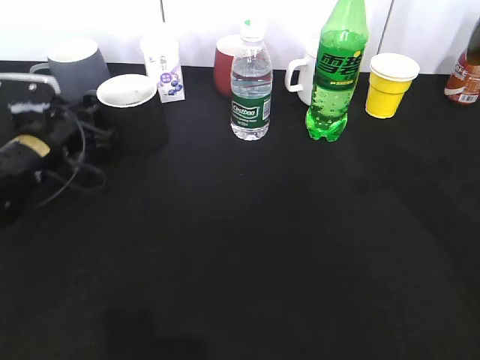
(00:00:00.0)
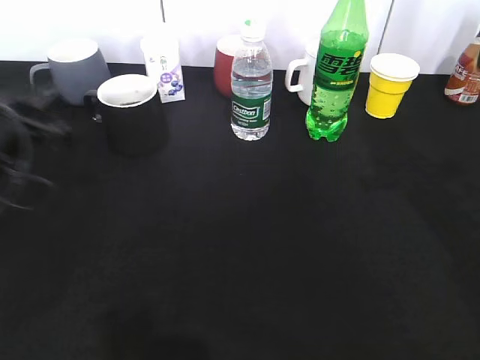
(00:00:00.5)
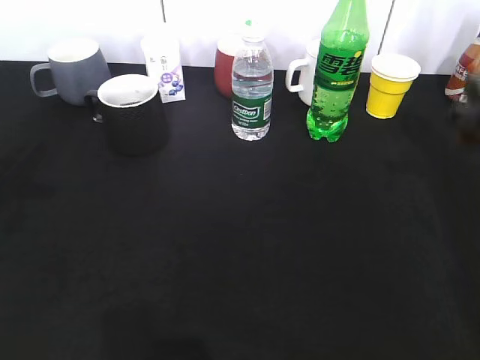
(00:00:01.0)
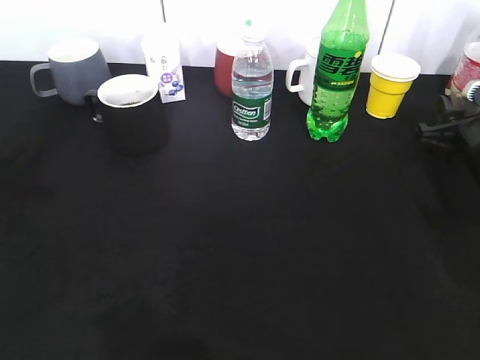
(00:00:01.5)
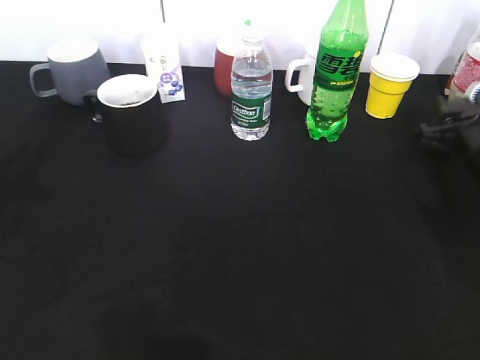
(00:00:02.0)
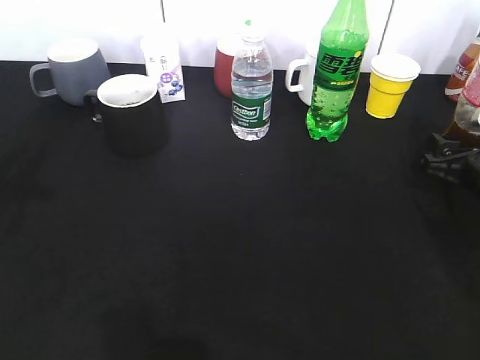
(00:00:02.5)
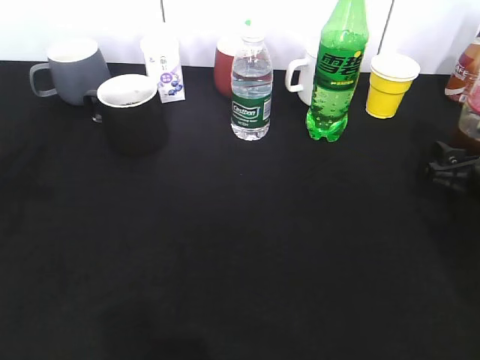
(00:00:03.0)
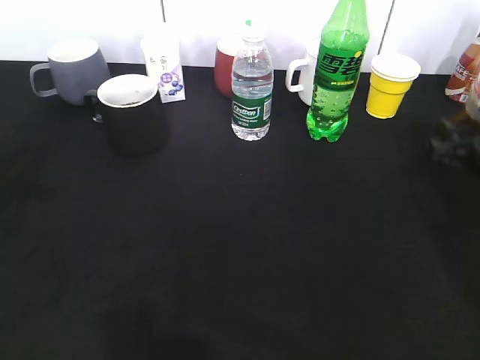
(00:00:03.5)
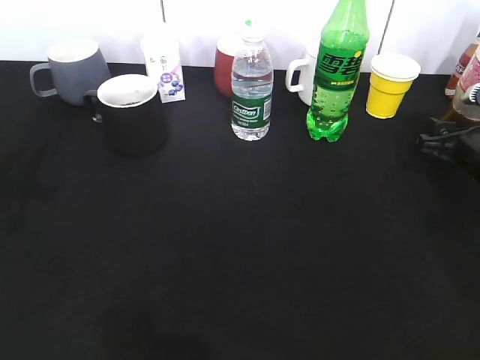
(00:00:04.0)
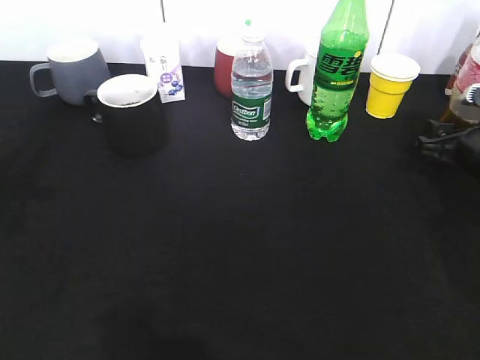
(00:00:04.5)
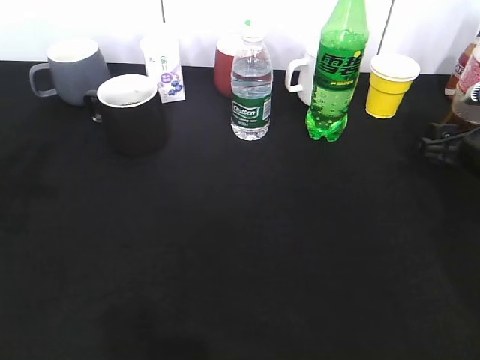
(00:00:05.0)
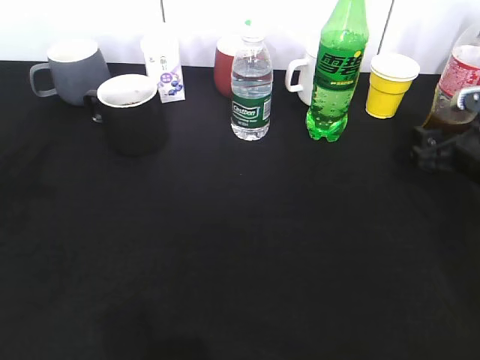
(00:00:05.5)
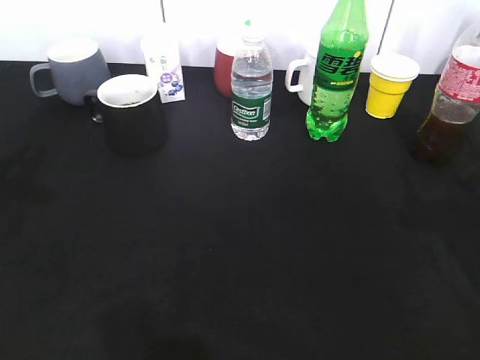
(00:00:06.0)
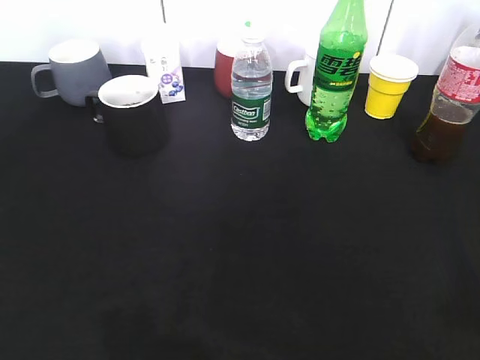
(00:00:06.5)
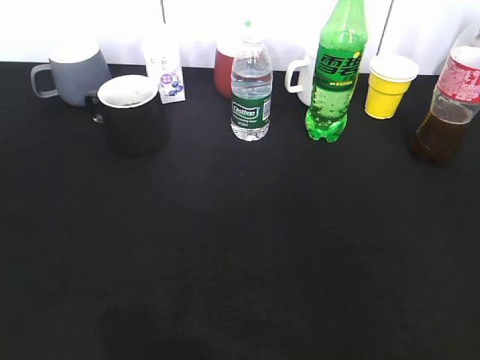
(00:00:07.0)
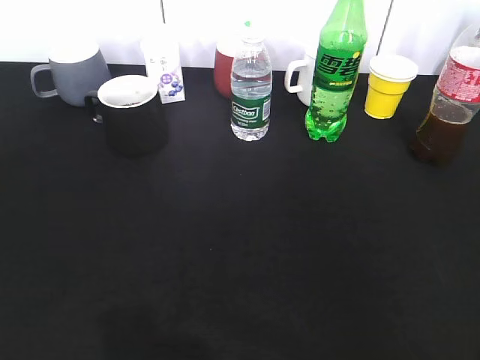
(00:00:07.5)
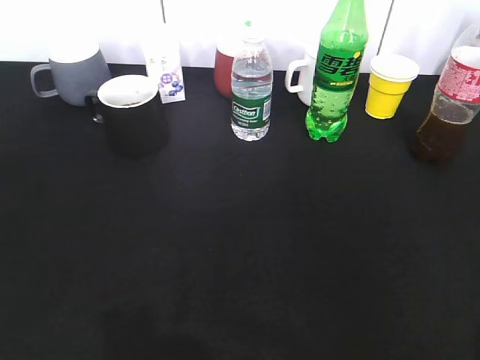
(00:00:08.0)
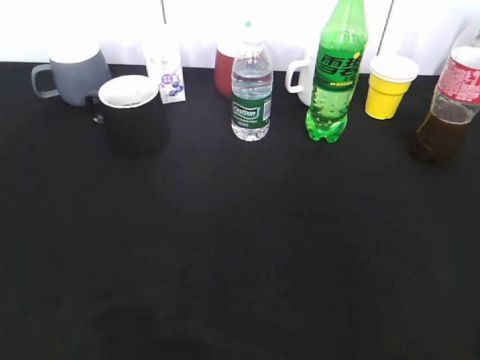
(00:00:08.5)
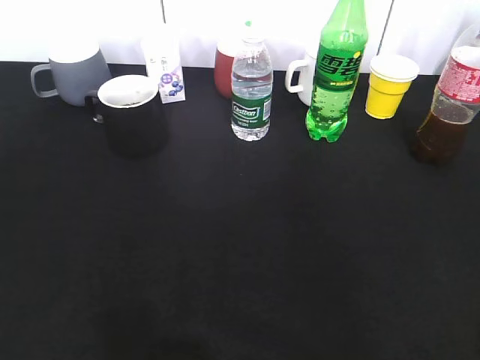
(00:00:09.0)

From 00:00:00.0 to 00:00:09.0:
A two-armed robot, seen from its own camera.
Step, from 00:00:00.5 to 00:00:06.0: Place the cola bottle on the table with right gripper.
From 00:00:00.0 to 00:00:02.0: The right gripper is displaced downward and forward by approximately 25 cm, and opens its fingers; the left gripper goes some 20 cm upward and backward.
From 00:00:04.5 to 00:00:07.0: The left gripper shifts roughly 20 cm backward, and closes up, while the right gripper moves backward and upward, approximately 40 cm.

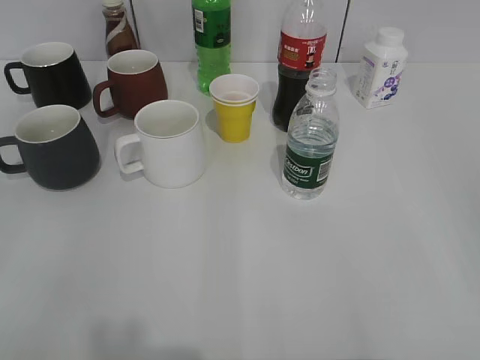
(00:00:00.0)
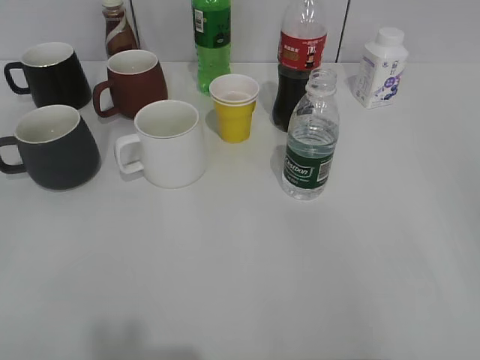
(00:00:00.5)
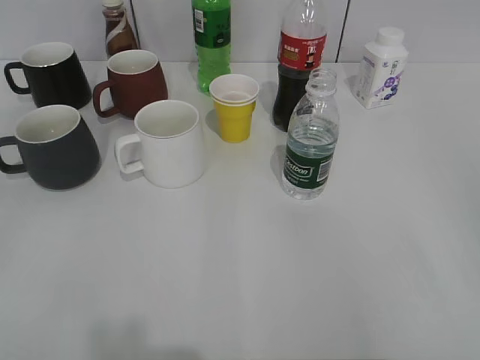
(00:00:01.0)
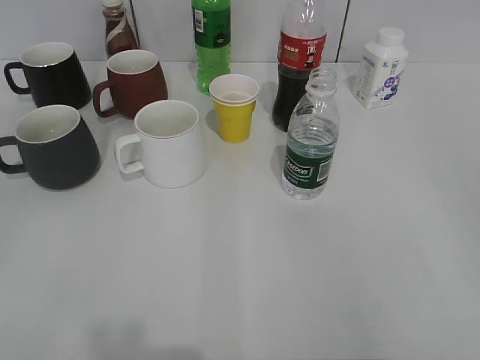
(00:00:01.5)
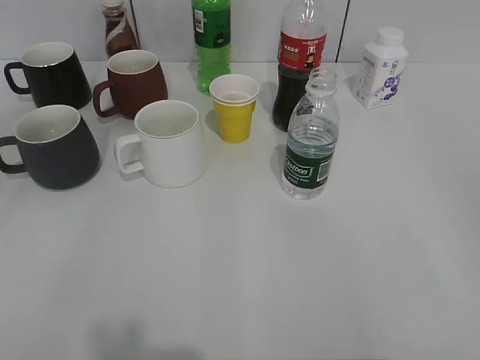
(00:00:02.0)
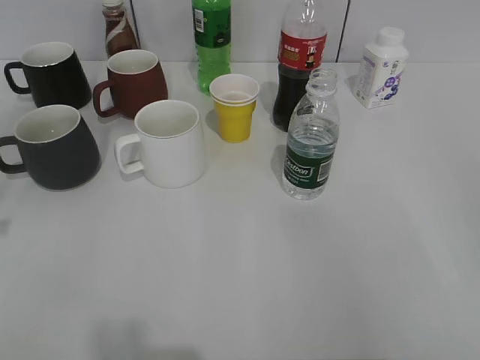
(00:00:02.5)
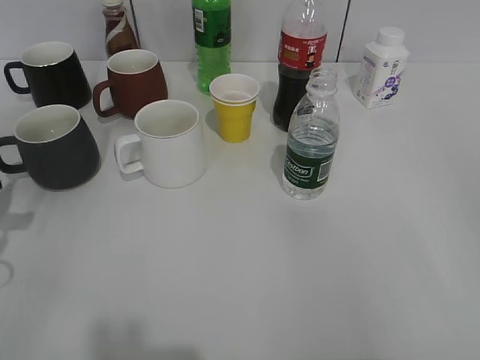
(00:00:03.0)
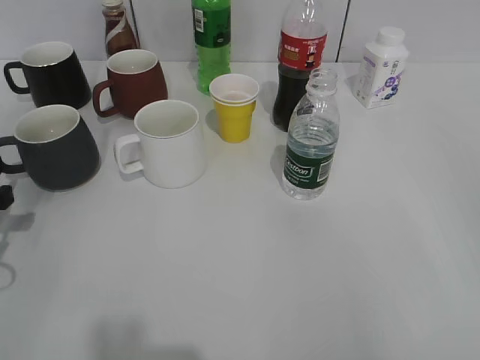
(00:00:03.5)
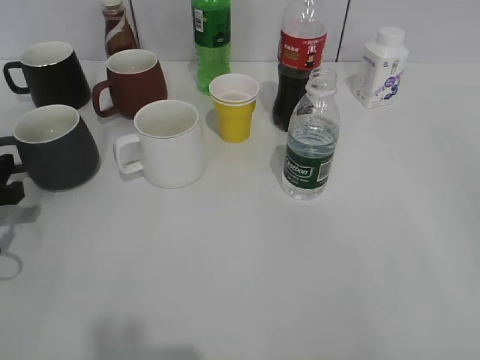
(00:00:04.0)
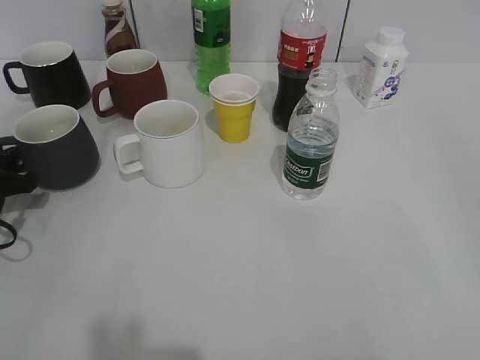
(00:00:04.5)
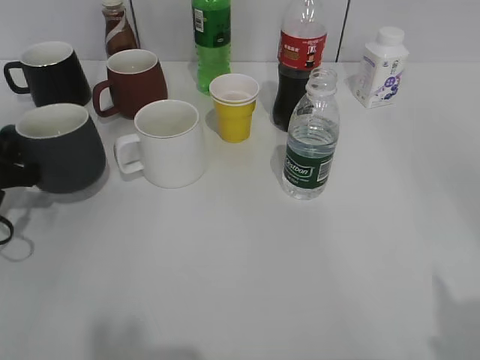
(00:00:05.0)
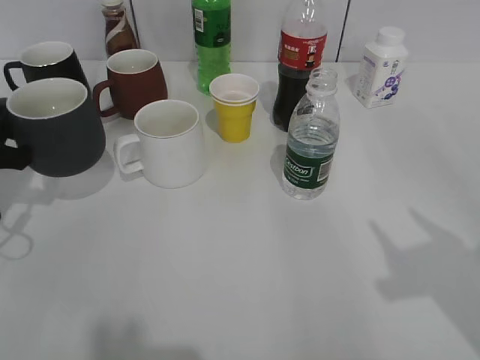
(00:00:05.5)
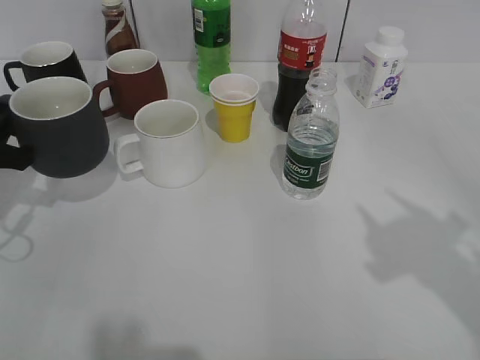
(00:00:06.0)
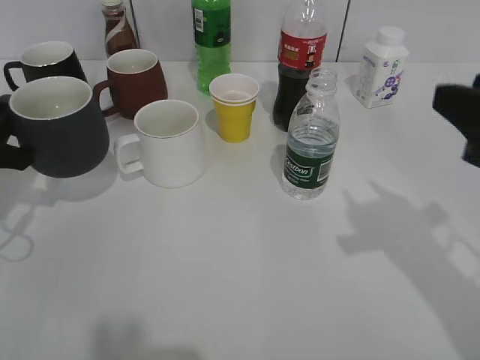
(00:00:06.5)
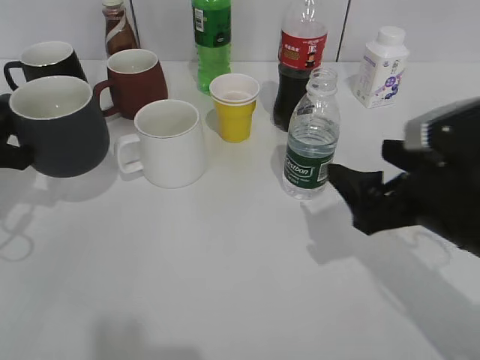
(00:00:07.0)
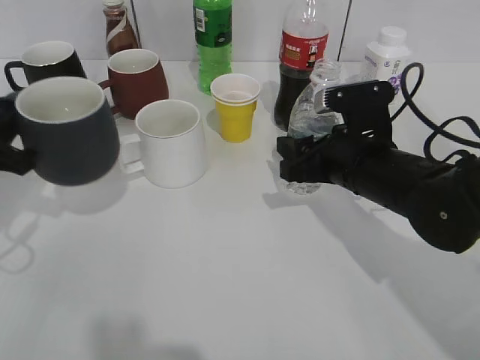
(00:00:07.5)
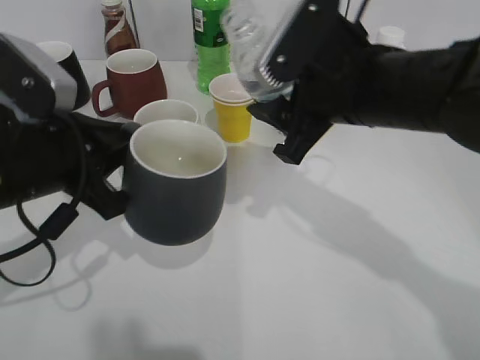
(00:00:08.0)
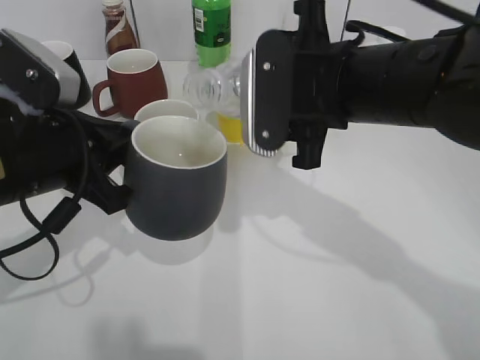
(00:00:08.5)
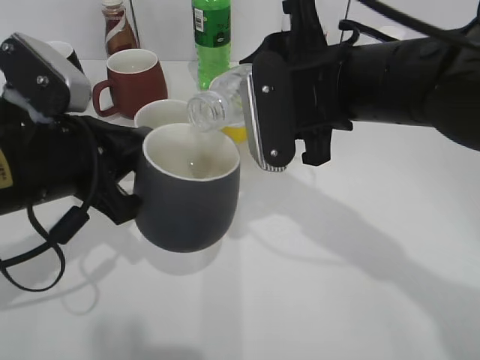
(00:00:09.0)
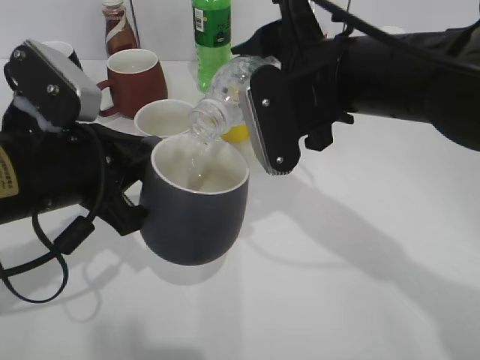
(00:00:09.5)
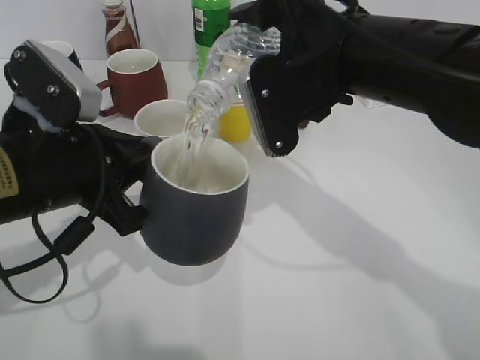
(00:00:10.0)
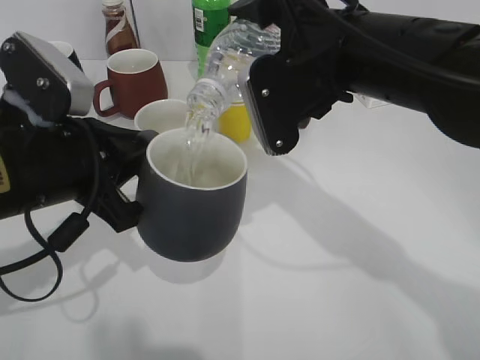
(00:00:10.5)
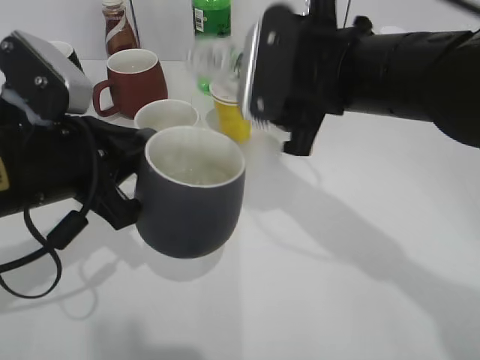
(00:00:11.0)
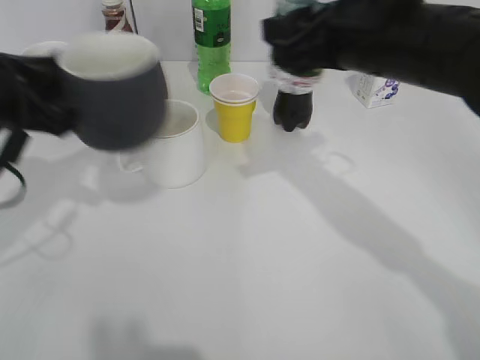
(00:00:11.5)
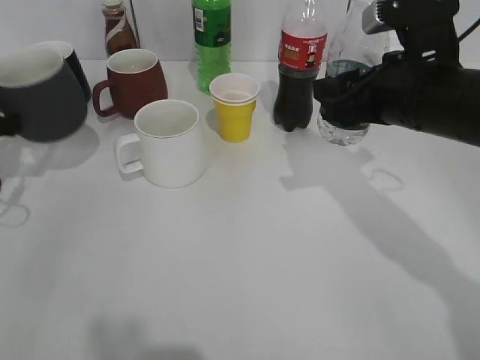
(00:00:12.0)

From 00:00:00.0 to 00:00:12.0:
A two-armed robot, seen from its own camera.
Step, from 00:00:02.0 to 00:00:04.5: Grasp the black cup with left gripper.
Step, from 00:00:05.0 to 00:00:05.5: Lift the black cup with left gripper.
Step, from 00:00:06.0 to 00:00:07.0: Grasp the bottle with water with right gripper.
Step, from 00:00:07.5 to 00:00:11.0: Pour the water from bottle to cup with right gripper.
From 00:00:02.0 to 00:00:04.0: The left gripper travels forward and downward by about 30 cm.
From 00:00:04.0 to 00:00:06.0: The left gripper changes place by approximately 5 cm, and closes.
From 00:00:06.0 to 00:00:08.0: The left gripper travels to the right by roughly 10 cm, while the right gripper travels to the left, forward and downward by some 25 cm, and opens, then closes once more.
From 00:00:10.0 to 00:00:12.0: The right gripper heads to the right, covering some 10 cm. The left gripper shifts about 20 cm to the left and forward.

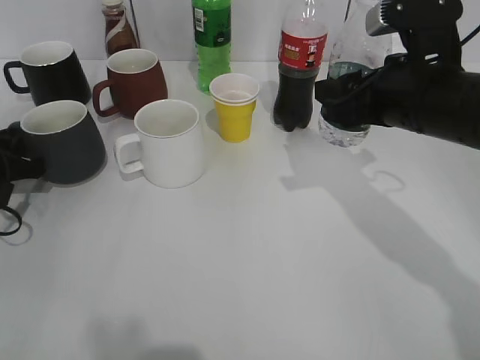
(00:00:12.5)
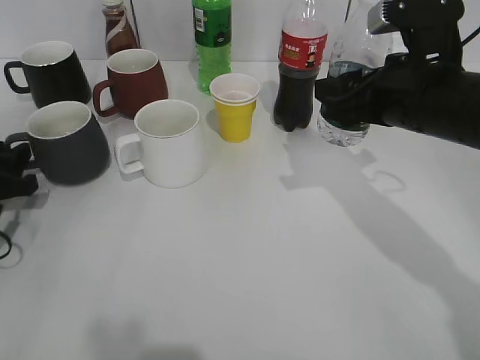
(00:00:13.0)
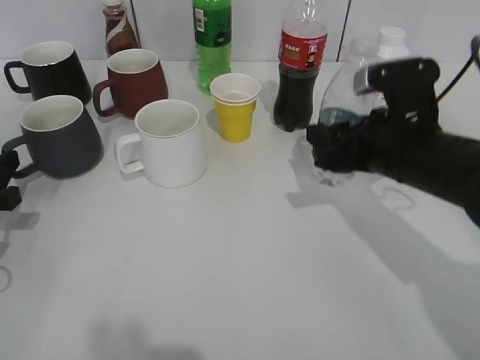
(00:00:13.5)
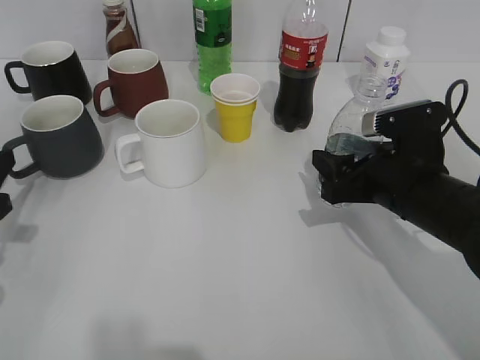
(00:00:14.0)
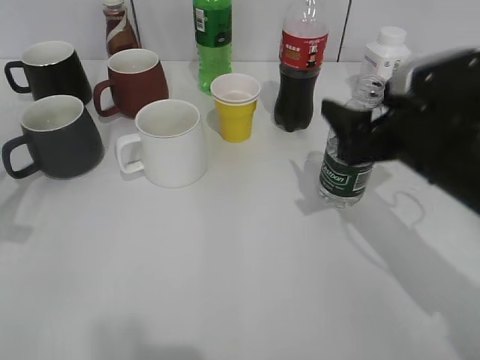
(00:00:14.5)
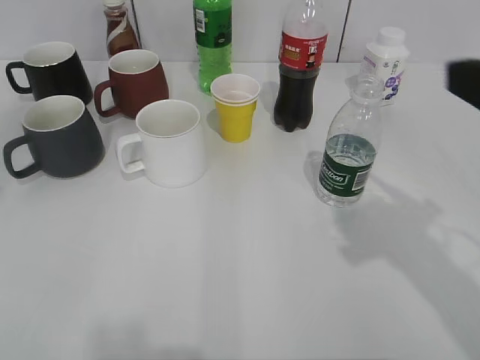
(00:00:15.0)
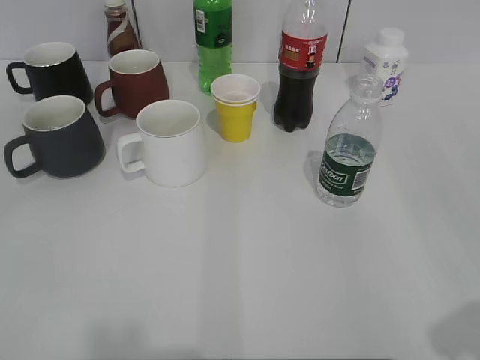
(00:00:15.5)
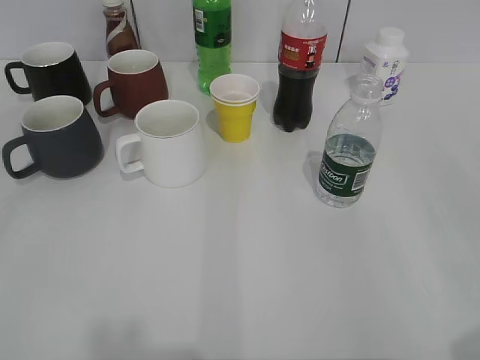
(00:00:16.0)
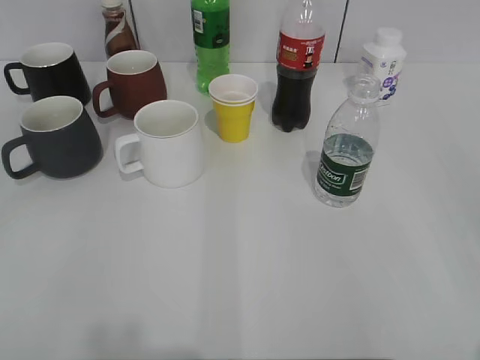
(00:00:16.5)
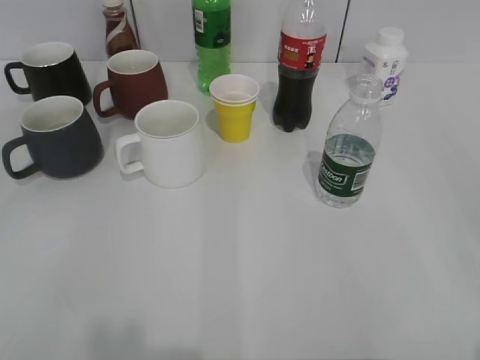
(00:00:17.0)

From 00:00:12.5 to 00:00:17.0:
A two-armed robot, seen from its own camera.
Step, from 00:00:13.5 to 00:00:14.0: Place the water bottle on the table with right gripper.
From 00:00:12.5 to 00:00:14.5: The left gripper travels backward and upward by roughly 15 cm, and opens, while the right gripper goes downward and returns, about 10 cm each way, and opens its fingers.
From 00:00:14.5 to 00:00:17.0: The right gripper moves backward and to the right, some 30 cm; the left gripper heads backward and upward, covering some 20 cm.
